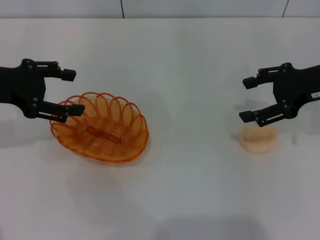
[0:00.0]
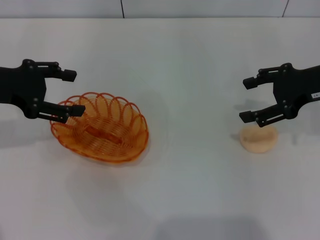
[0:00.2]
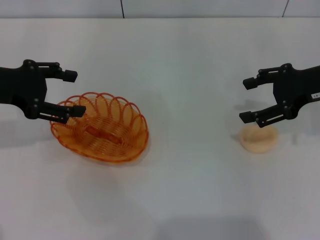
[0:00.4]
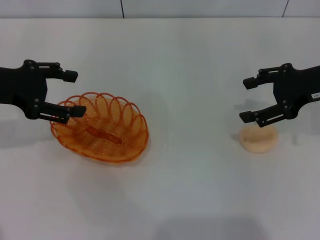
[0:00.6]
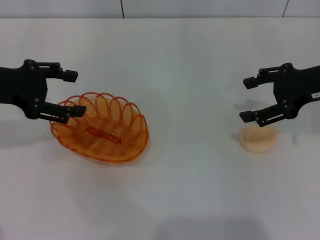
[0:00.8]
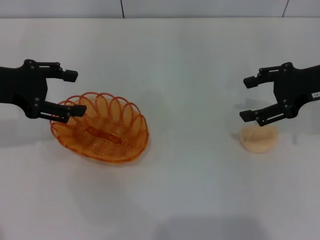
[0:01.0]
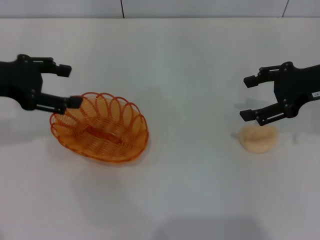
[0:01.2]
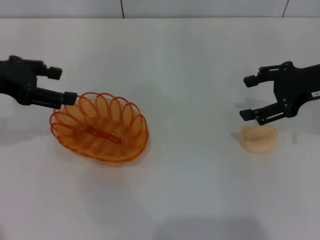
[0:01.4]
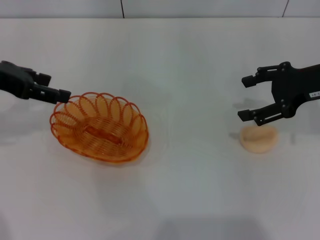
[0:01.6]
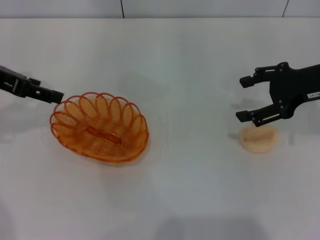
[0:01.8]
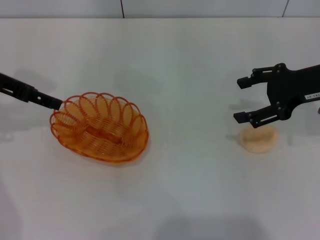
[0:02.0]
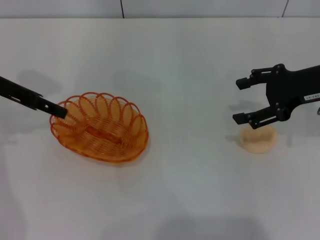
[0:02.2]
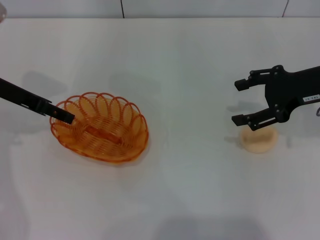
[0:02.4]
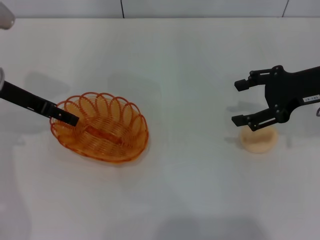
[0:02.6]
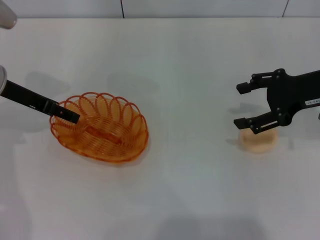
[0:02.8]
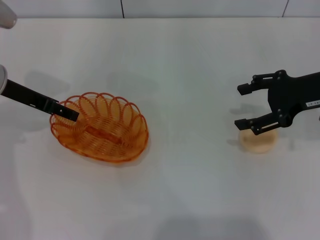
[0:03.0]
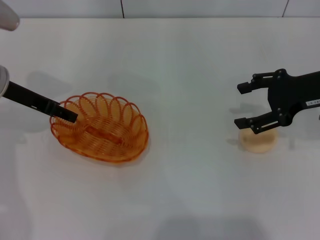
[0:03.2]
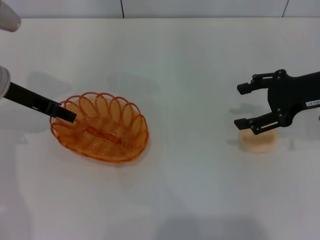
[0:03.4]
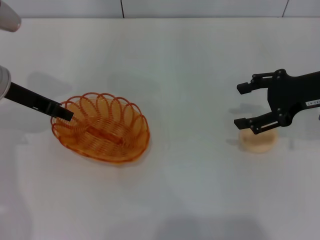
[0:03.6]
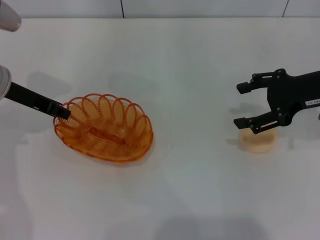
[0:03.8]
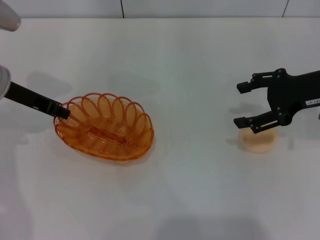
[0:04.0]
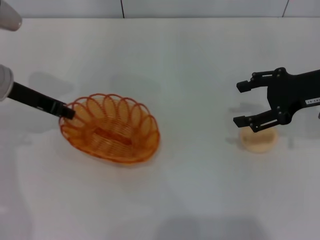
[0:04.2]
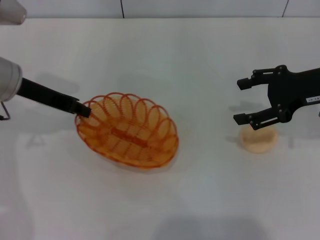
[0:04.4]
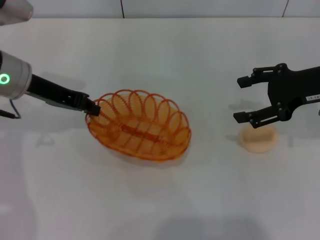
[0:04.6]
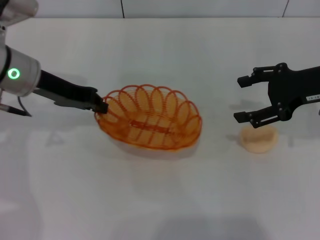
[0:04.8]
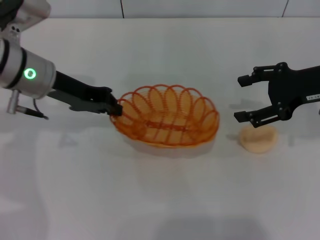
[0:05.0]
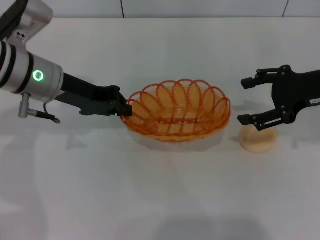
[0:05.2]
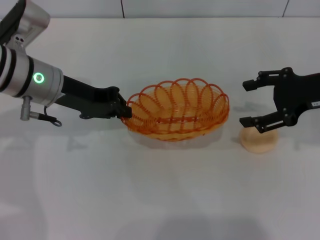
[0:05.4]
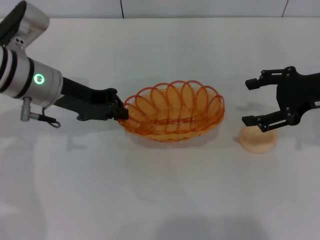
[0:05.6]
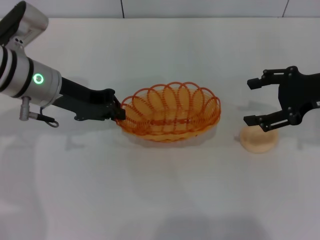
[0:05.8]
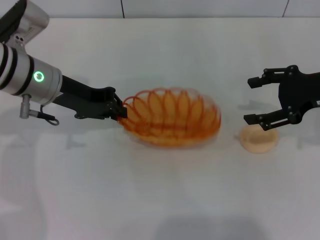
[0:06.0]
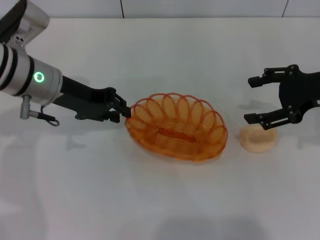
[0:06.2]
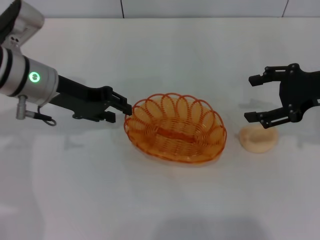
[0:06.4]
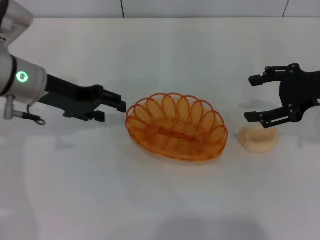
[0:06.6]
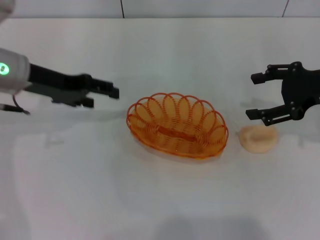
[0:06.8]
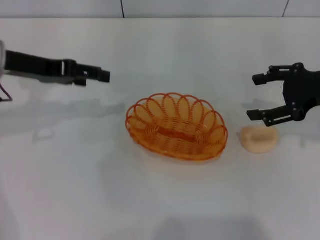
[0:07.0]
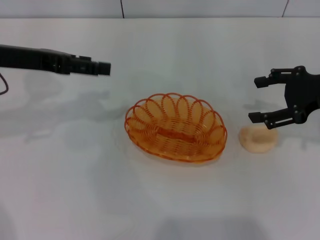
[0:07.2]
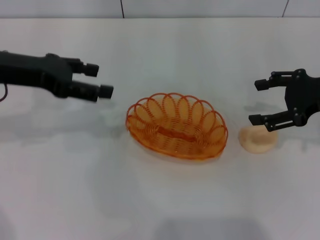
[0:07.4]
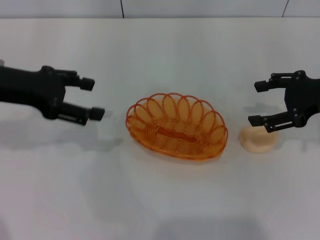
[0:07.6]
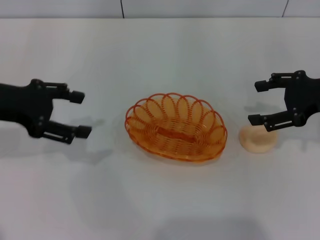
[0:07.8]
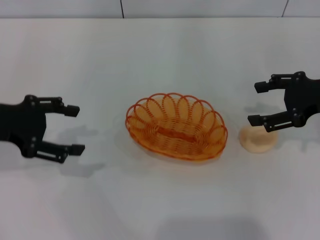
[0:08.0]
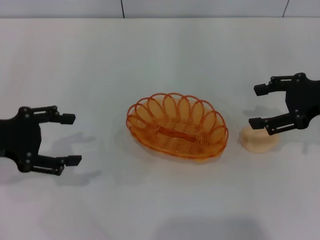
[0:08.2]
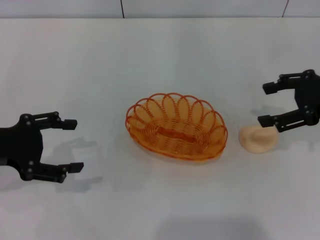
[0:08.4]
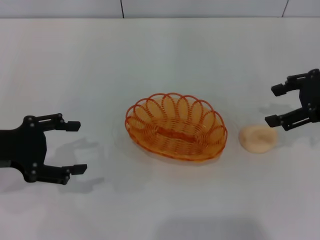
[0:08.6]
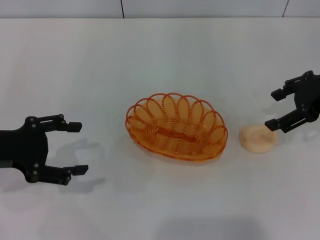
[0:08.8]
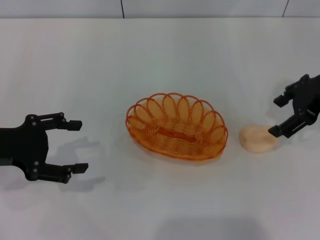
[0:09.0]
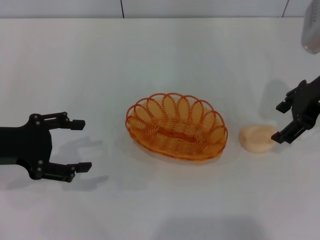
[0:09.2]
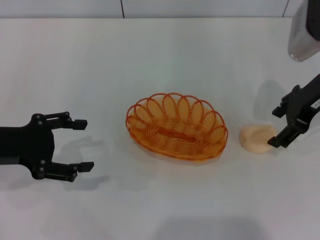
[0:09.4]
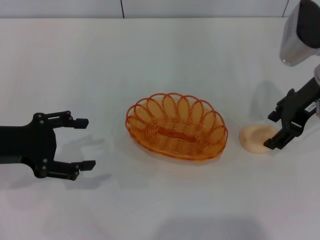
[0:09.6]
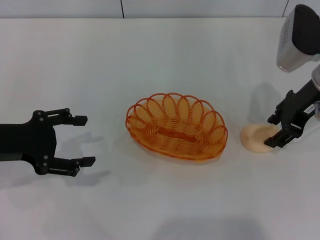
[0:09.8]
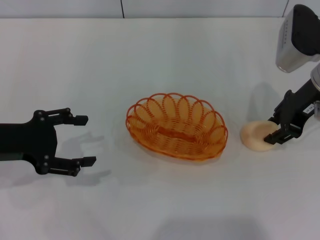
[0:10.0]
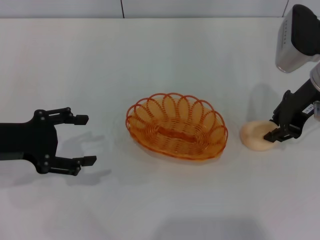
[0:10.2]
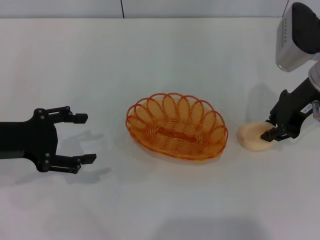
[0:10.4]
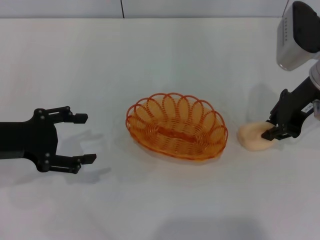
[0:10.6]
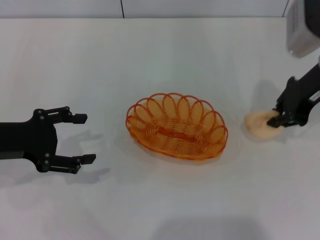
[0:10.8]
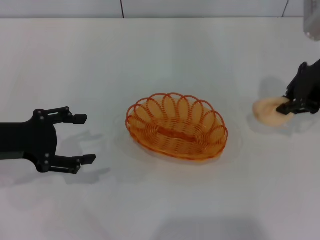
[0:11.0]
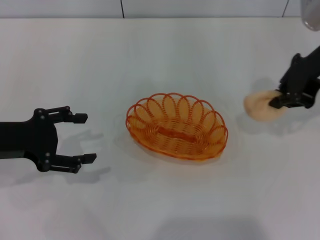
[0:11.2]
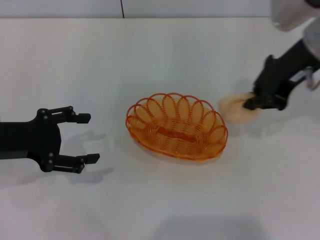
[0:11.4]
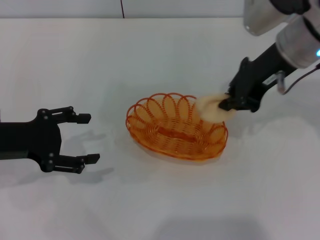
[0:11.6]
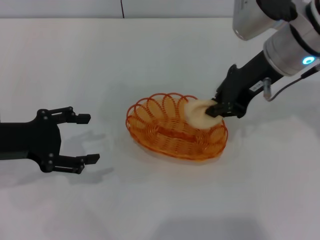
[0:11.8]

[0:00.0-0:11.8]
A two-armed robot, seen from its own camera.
Step, 0:00.0 to 0:04.8: Pick up the basket with the left gripper.
Step, 0:05.0 to 0:06.8: Place the basket in the center of view with the left gripper.
Step, 0:07.0 to 0:10.8: Pick up the egg yolk pastry with the right gripper.
0:00.0 to 0:01.4: The grippers move only a little.
0:01.4 to 0:03.0: The left gripper travels downward by some 5 cm.
0:03.0 to 0:04.4: The left gripper closes its fingers.
0:06.0 to 0:07.4: The left gripper shifts approximately 5 cm to the left, and opens up.
0:07.4 to 0:08.8: The left gripper goes some 10 cm backward and downward.
0:08.8 to 0:10.4: The right gripper shifts some 5 cm to the left, and closes its fingers.
0:10.4 to 0:11.8: The right gripper moves to the left, roughly 5 cm.

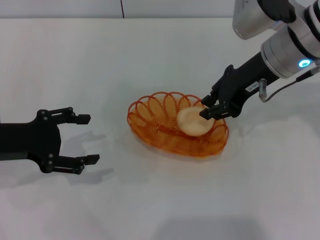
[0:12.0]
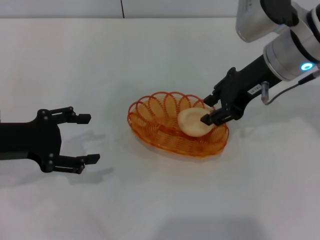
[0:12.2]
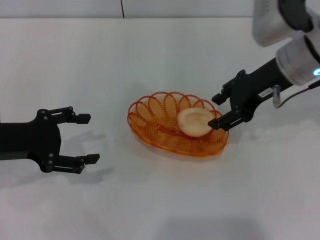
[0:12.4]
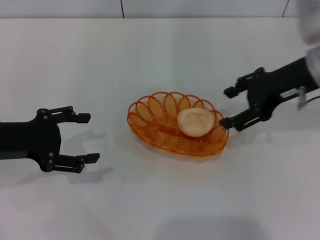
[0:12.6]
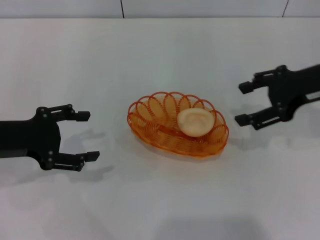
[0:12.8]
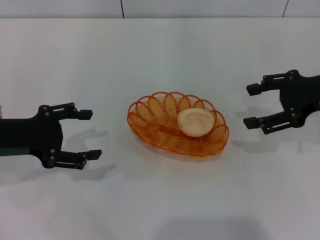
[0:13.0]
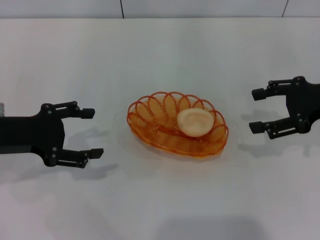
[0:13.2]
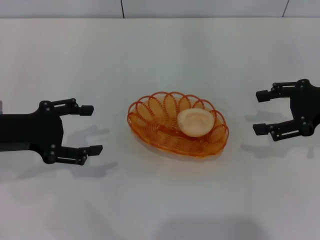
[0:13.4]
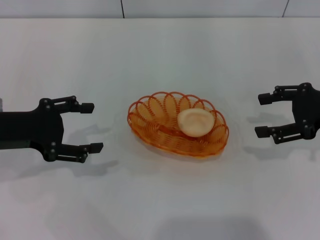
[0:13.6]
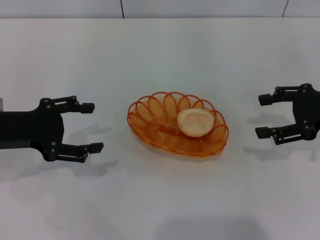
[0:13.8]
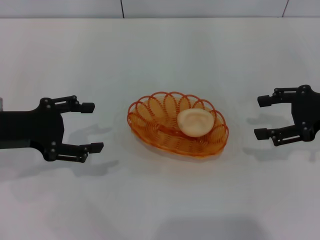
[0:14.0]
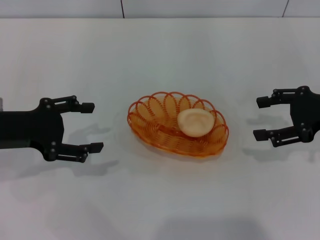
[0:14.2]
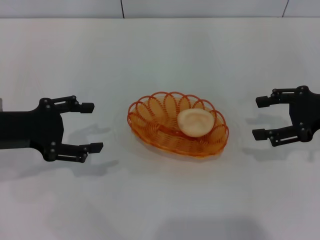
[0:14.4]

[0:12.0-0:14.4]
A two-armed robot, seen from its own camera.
0:12.0 to 0:13.2: The right gripper is displaced to the right by some 15 cm, and opens.
0:13.2 to 0:14.4: The grippers stay close to where they were, moving slightly.

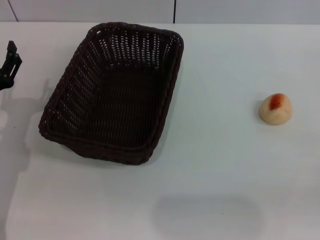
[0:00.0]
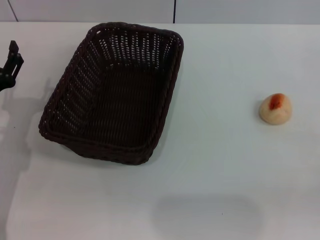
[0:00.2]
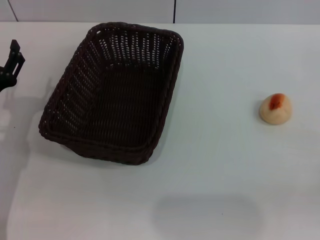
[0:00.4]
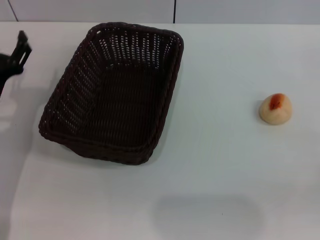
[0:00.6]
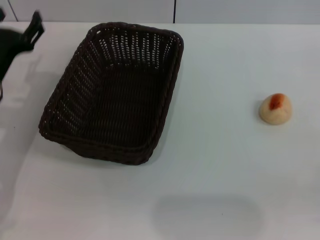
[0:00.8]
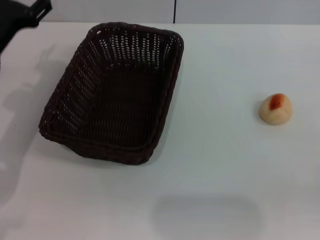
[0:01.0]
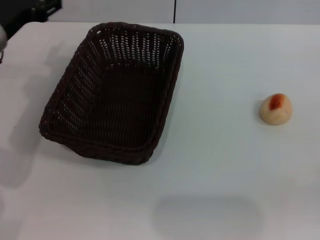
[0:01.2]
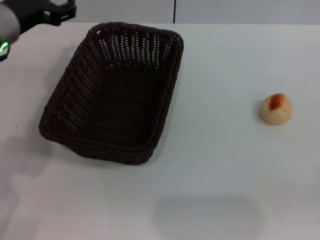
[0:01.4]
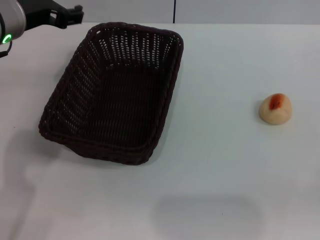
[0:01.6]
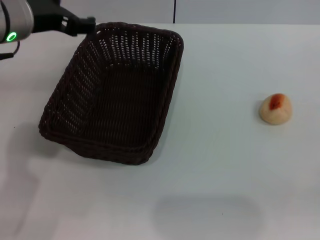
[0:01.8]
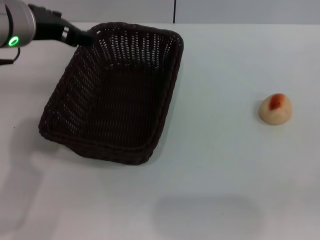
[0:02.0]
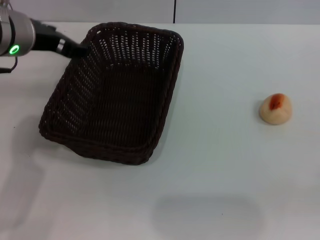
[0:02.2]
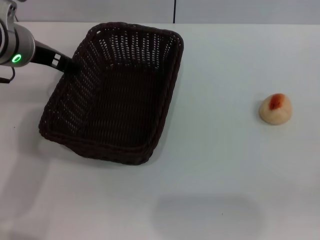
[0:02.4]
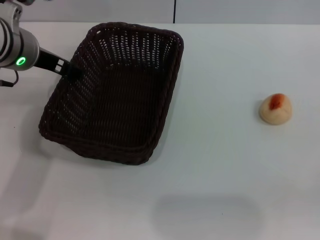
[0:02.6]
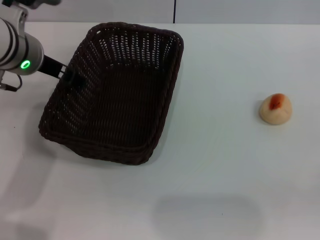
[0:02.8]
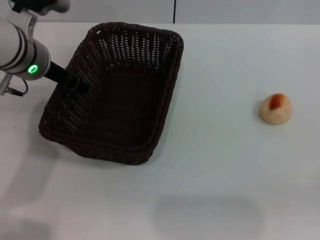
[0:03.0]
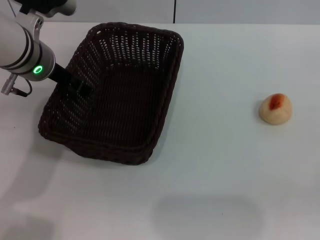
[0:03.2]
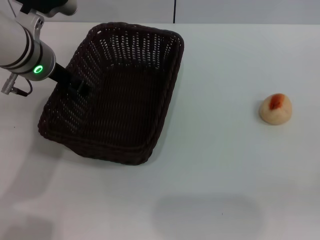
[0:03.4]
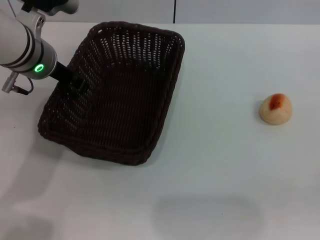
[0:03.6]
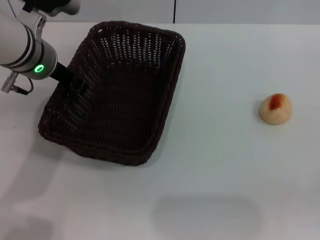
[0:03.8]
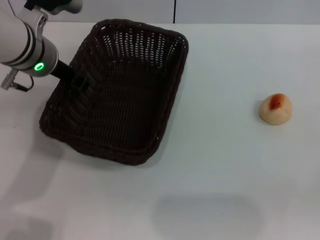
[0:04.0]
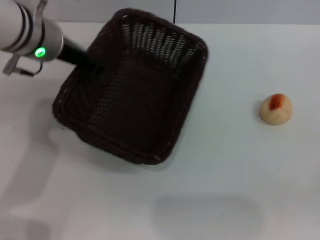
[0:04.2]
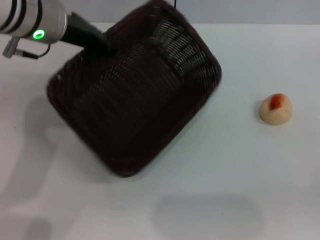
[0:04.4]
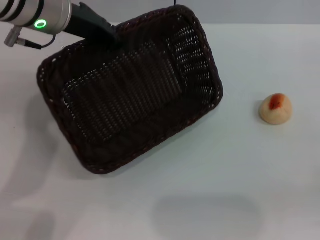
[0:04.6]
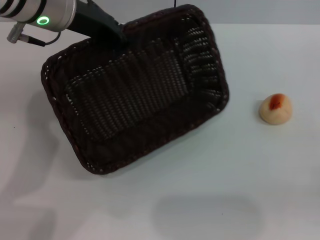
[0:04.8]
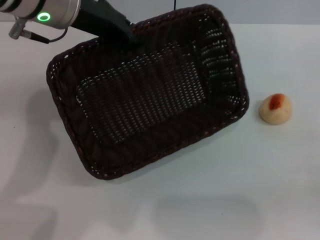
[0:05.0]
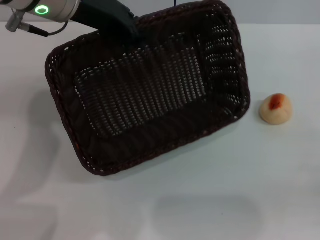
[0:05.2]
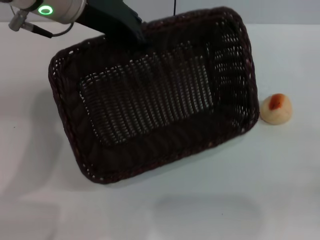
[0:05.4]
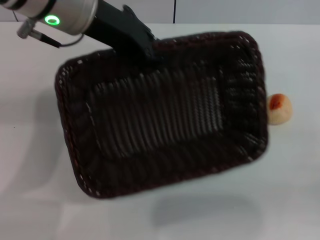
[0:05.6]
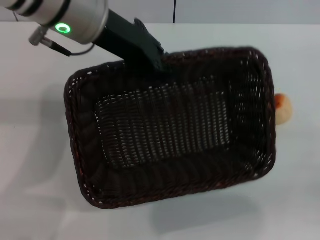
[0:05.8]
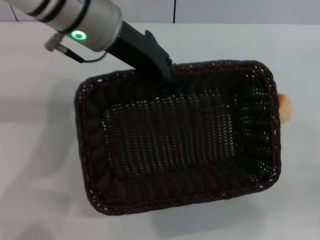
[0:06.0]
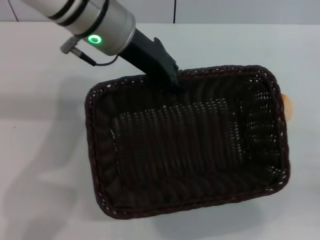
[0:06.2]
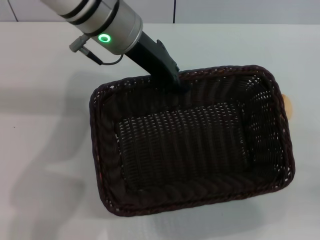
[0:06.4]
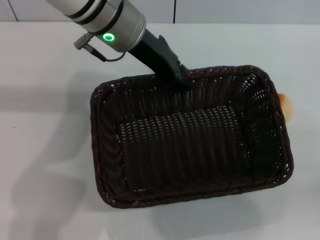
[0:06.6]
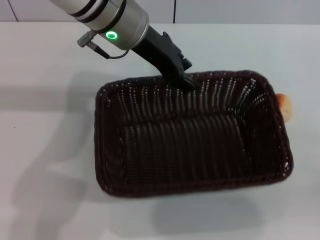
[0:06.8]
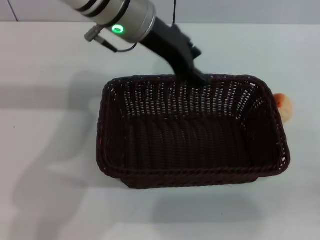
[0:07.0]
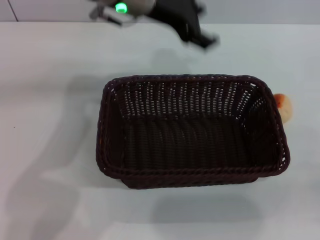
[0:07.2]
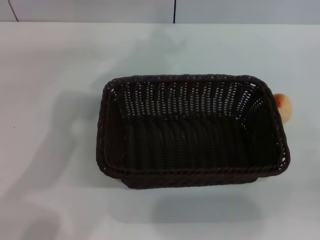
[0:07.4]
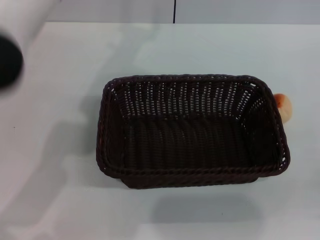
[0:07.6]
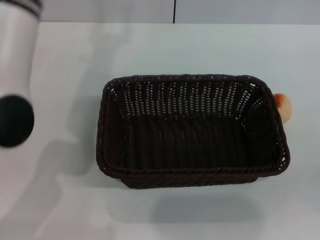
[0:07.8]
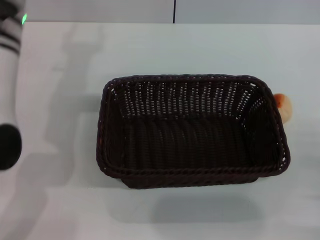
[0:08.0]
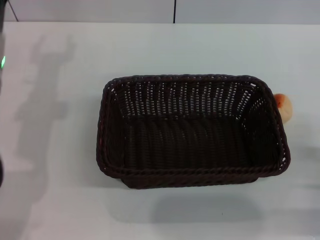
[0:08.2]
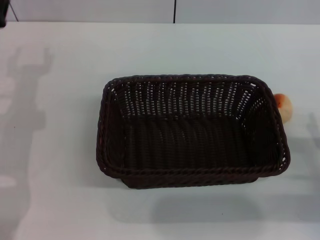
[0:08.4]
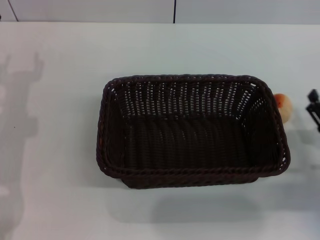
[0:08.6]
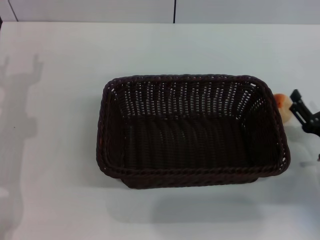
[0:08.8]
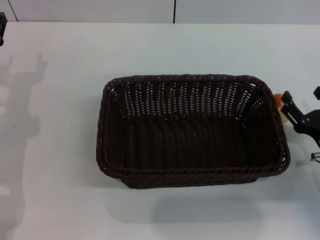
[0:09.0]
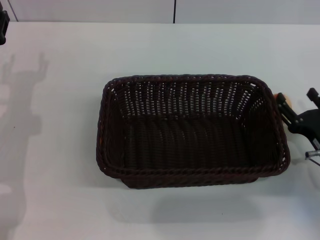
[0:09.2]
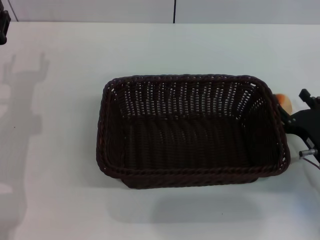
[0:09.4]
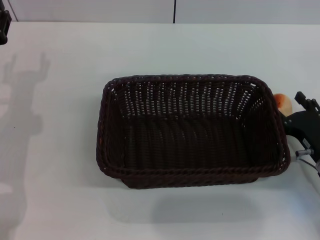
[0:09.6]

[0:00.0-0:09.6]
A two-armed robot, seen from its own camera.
Step, 0:00.0 to 0:07.0: Move the basket to the center of view with the left gripper.
0:00.0 to 0:01.6: The left gripper moves upward, forward and to the right, some 20 cm.
0:01.6 to 0:03.2: The left gripper shifts about 5 cm downward.
0:03.2 to 0:04.8: The left gripper heads upward, covering some 10 cm, and closes its fingers.
0:04.8 to 0:06.4: The left gripper is displaced to the right by approximately 5 cm.
0:06.4 to 0:08.0: The left gripper moves to the left, about 10 cm, and opens up. The right gripper moves approximately 5 cm.
0:08.0 to 0:09.6: The right gripper is displaced forward and to the left by about 10 cm; the left gripper is displaced downward and to the left by roughly 15 cm.
